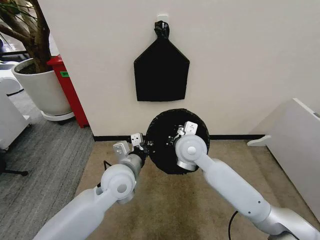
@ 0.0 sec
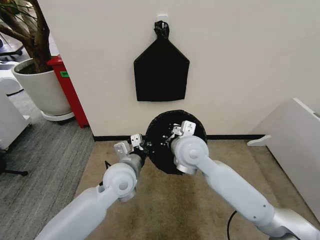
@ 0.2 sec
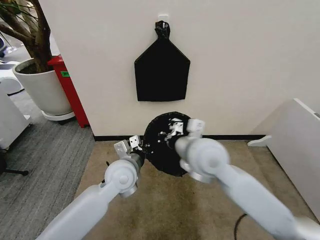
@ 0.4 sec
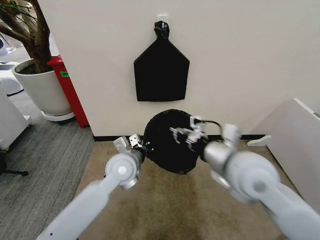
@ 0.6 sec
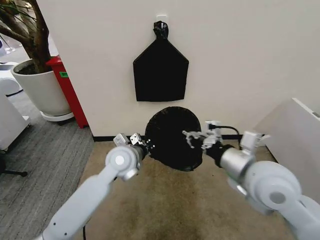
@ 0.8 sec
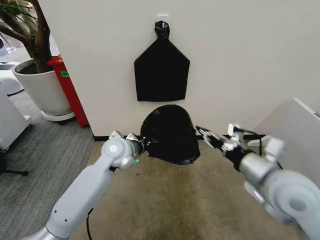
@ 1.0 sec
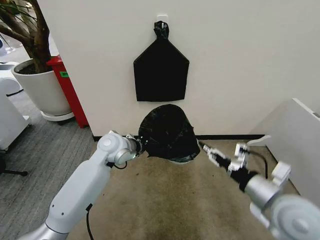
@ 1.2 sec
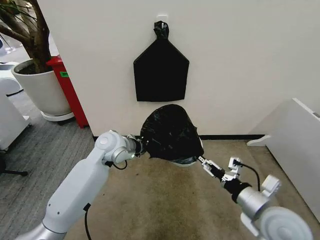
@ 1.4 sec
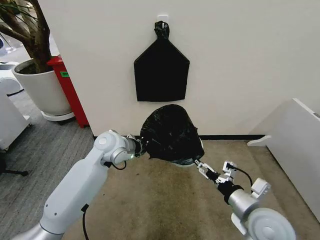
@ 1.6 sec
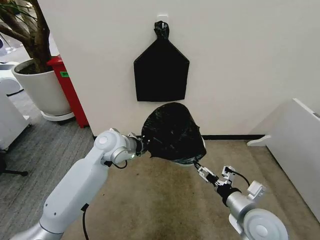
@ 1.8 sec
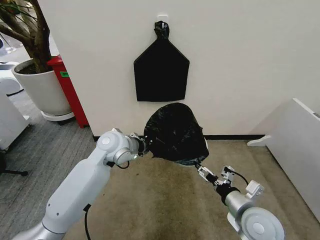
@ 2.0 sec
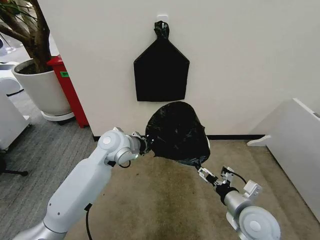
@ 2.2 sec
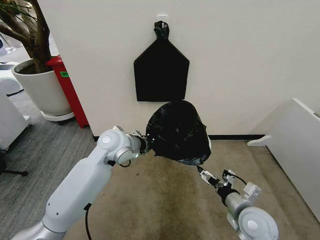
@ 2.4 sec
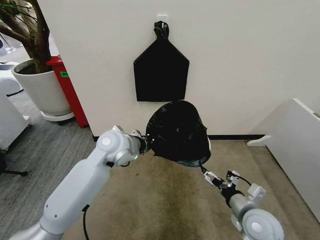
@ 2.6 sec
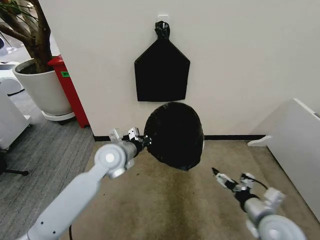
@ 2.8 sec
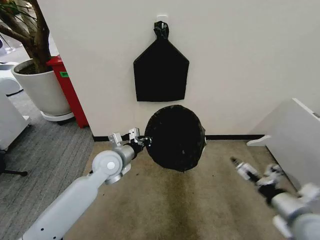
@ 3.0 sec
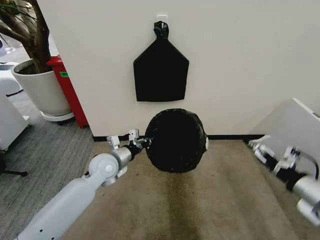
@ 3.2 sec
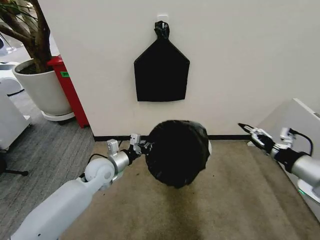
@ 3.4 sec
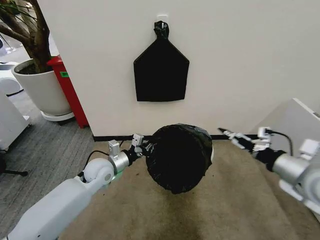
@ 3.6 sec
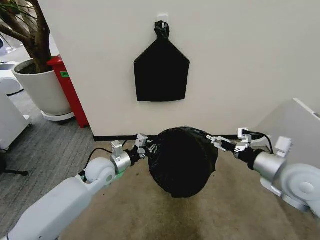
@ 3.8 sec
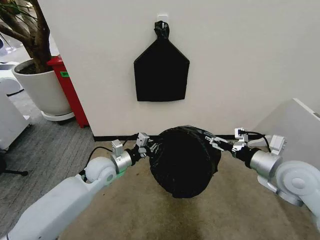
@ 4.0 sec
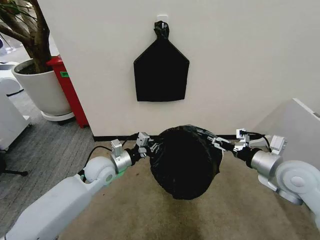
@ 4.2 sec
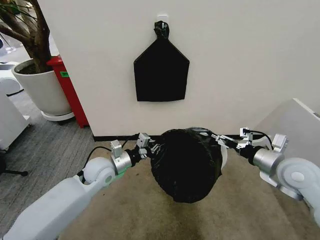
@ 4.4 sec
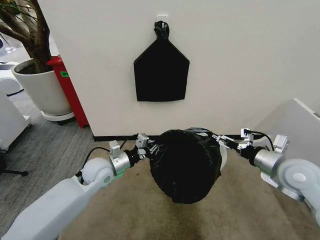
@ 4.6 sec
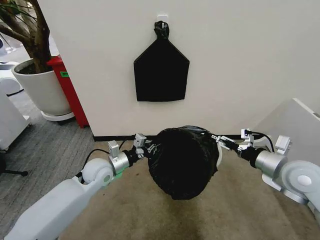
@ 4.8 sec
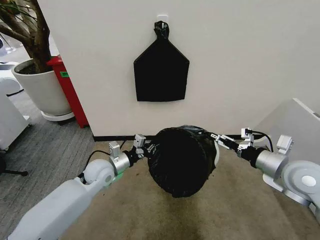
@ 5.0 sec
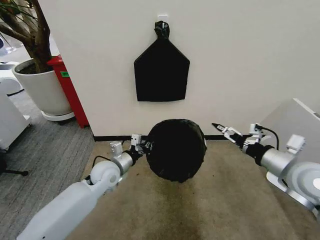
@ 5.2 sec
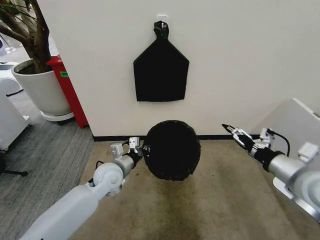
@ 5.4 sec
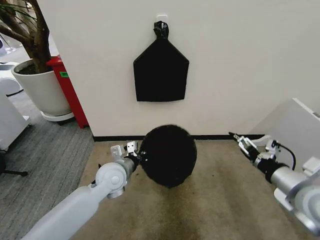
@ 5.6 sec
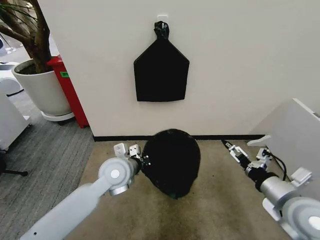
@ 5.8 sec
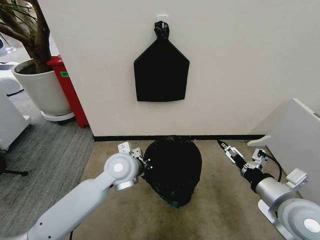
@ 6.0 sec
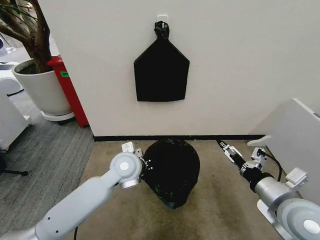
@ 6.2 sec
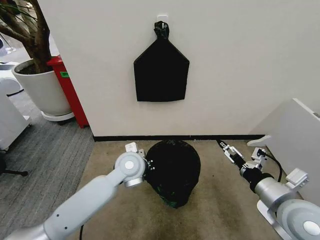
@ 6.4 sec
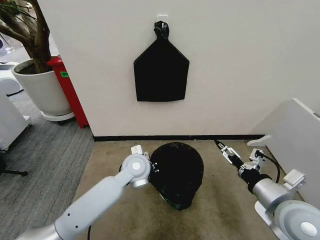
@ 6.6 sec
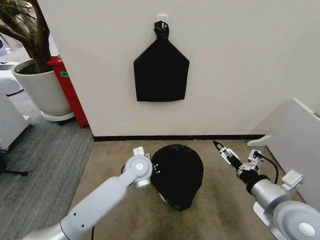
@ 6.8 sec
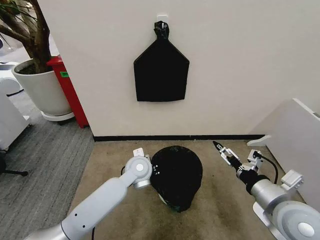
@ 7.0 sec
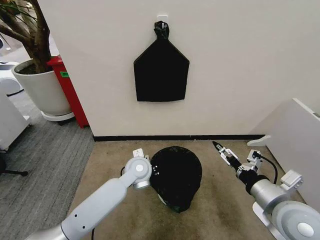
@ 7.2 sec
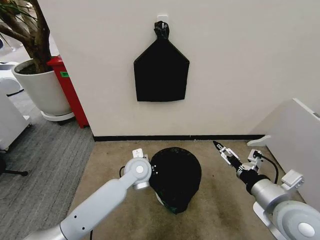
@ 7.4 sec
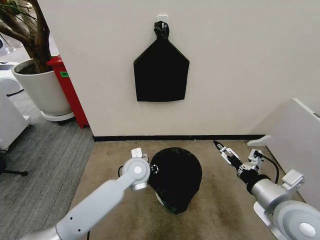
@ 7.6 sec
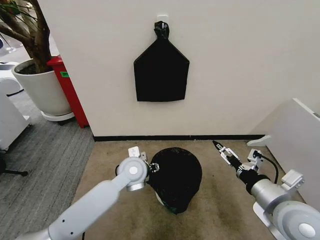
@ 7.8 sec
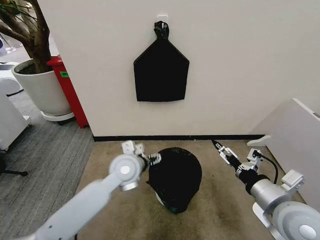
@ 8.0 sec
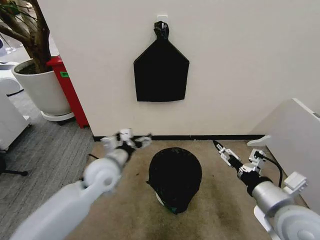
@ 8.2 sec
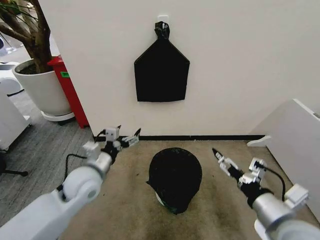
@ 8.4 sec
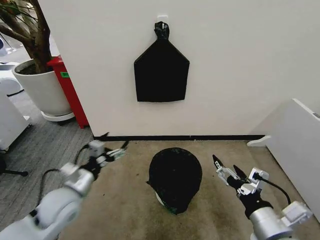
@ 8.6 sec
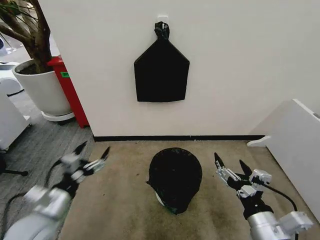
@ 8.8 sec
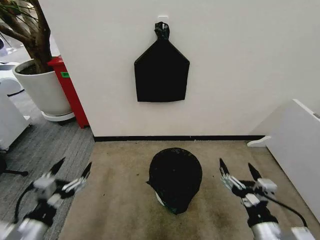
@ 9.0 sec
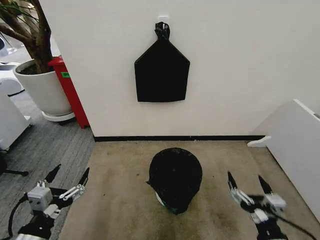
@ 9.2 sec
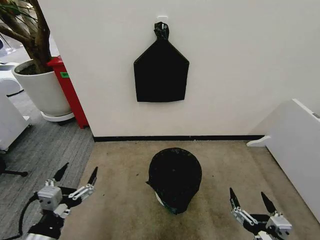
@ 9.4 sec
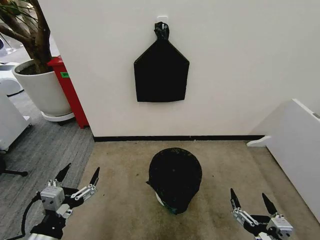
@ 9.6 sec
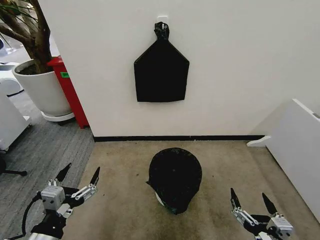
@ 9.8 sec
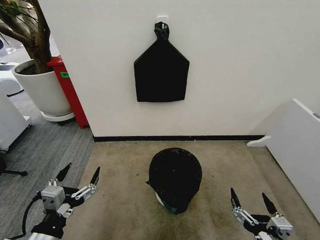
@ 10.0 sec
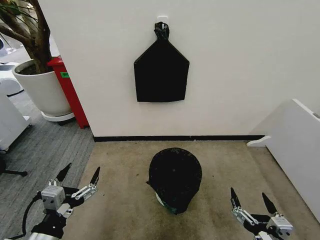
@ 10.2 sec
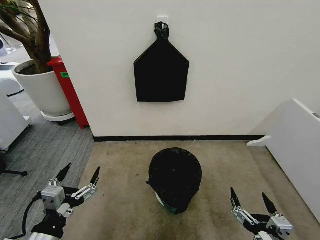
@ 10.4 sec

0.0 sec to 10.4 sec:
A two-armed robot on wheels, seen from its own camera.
Task of the whole recording: Place the garbage bag over the trash bin.
0.0 sec to 1.4 sec: The right gripper travels backward and to the right by about 25 cm, and opens its fingers; the left gripper heads forward, covering roughly 10 cm.
1.4 sec to 3.0 sec: The right gripper shifts approximately 5 cm to the right. Meanwhile the left gripper shifts by about 5 cm.
3.0 sec to 4.4 sec: The right gripper shifts some 15 cm forward and upward.
4.4 sec to 6.0 sec: The right gripper shifts approximately 10 cm backward. Meanwhile the left gripper heads to the right and upward, covering some 10 cm.
6.0 sec to 7.4 sec: The left gripper is displaced downward by roughly 5 cm.
7.4 sec to 9.0 sec: The left gripper moves backward and to the left, about 35 cm, and opens its fingers, while the right gripper moves backward and downward, approximately 10 cm.
9.0 sec to 10.4 sec: The left gripper moves about 5 cm. Meanwhile the right gripper moves backward, about 10 cm.

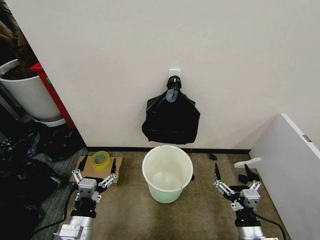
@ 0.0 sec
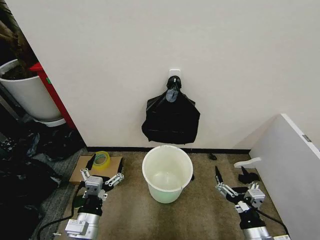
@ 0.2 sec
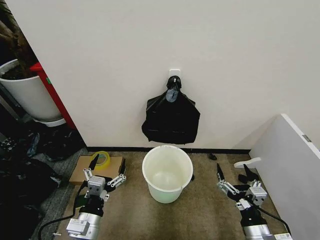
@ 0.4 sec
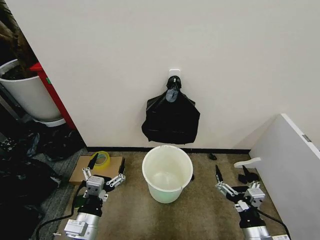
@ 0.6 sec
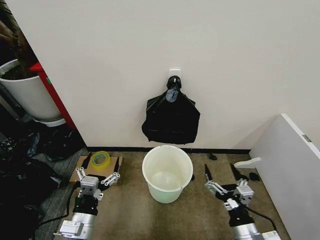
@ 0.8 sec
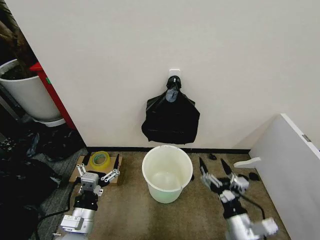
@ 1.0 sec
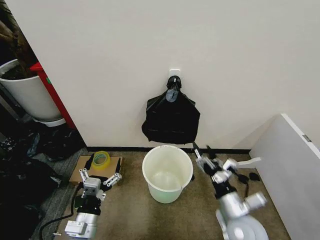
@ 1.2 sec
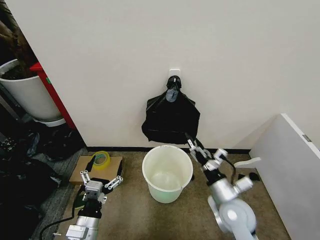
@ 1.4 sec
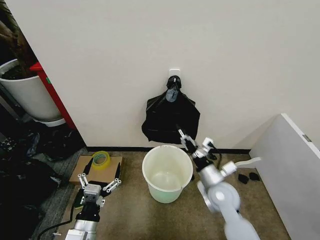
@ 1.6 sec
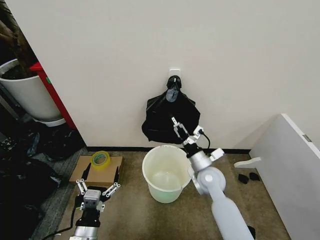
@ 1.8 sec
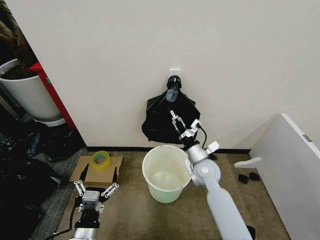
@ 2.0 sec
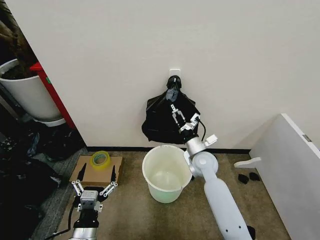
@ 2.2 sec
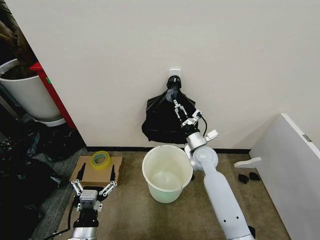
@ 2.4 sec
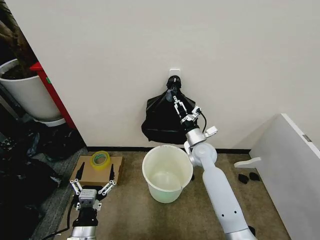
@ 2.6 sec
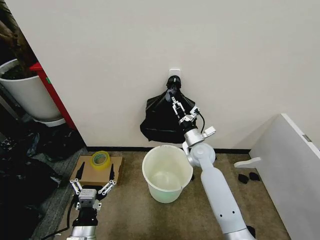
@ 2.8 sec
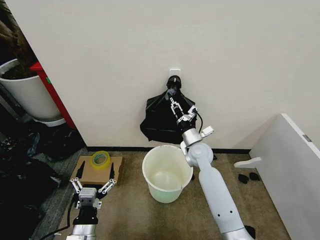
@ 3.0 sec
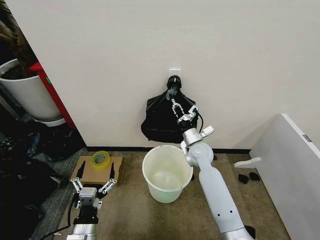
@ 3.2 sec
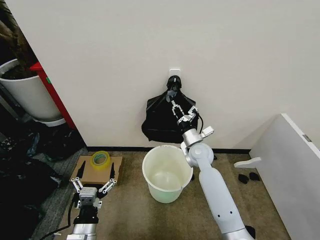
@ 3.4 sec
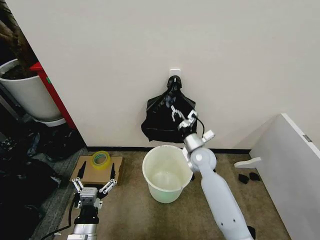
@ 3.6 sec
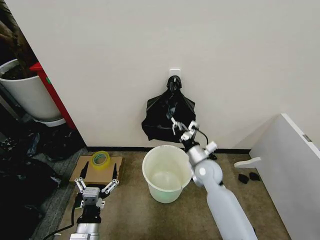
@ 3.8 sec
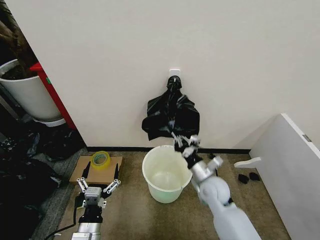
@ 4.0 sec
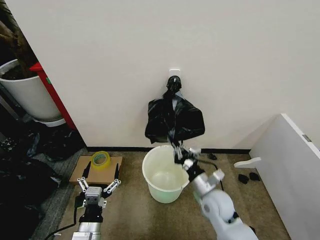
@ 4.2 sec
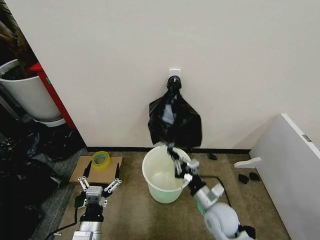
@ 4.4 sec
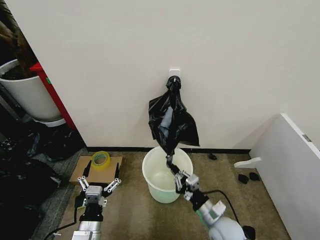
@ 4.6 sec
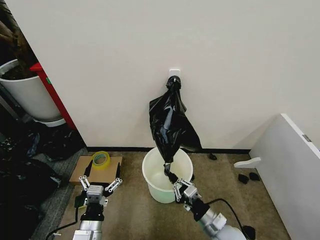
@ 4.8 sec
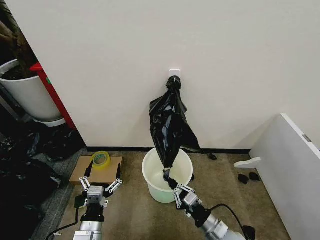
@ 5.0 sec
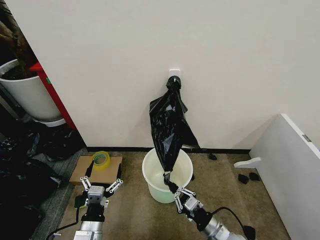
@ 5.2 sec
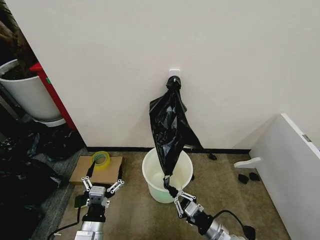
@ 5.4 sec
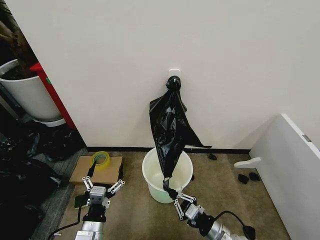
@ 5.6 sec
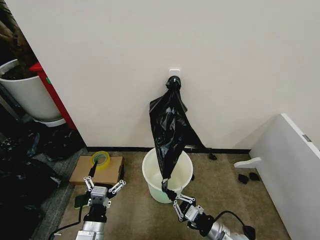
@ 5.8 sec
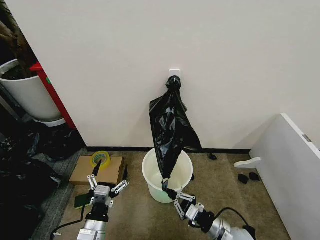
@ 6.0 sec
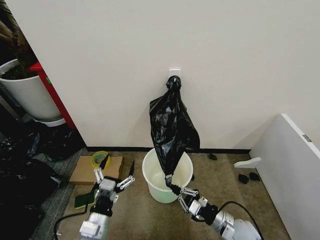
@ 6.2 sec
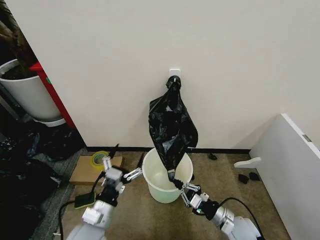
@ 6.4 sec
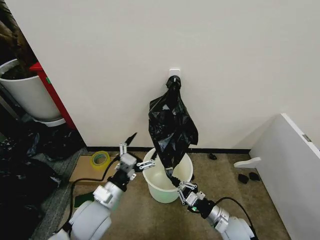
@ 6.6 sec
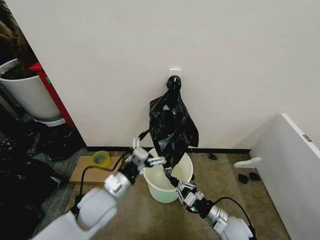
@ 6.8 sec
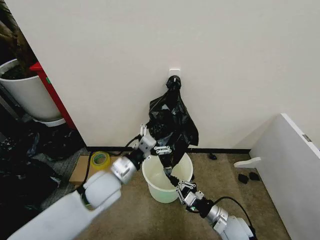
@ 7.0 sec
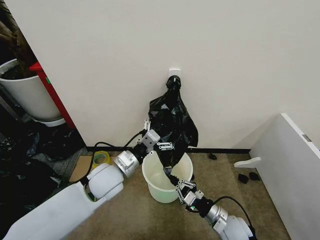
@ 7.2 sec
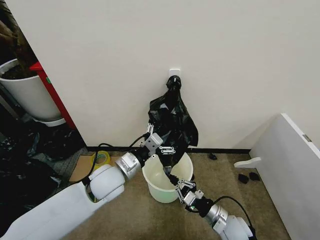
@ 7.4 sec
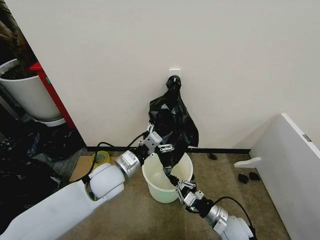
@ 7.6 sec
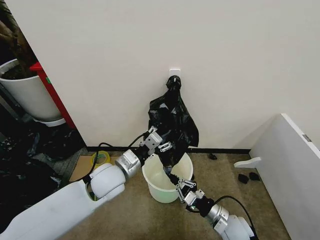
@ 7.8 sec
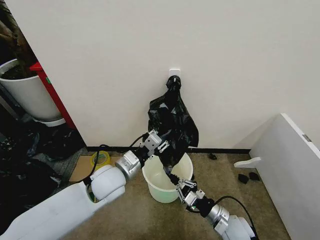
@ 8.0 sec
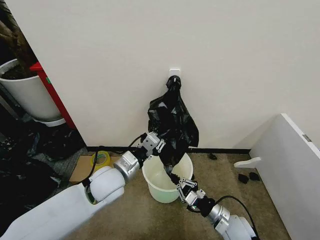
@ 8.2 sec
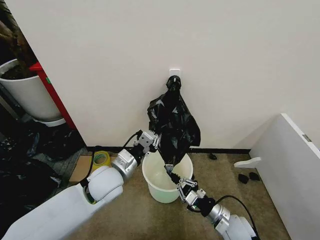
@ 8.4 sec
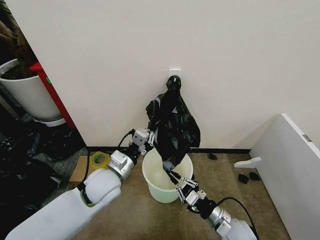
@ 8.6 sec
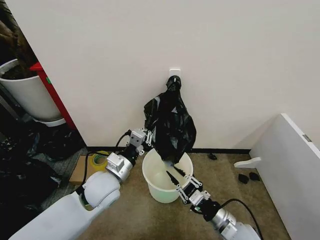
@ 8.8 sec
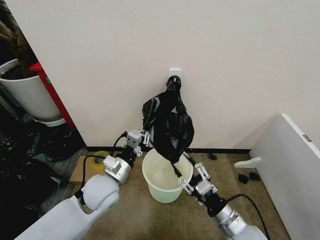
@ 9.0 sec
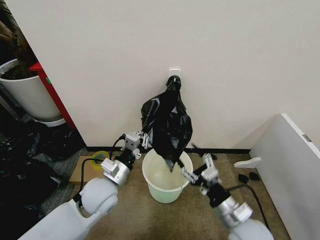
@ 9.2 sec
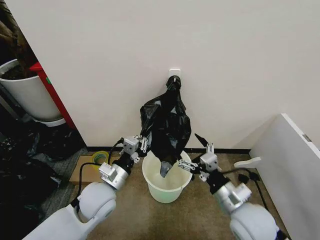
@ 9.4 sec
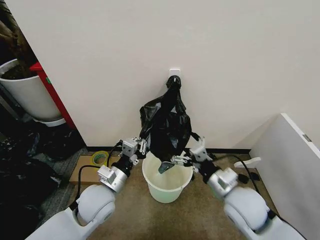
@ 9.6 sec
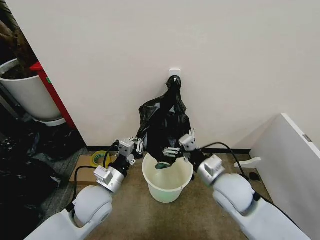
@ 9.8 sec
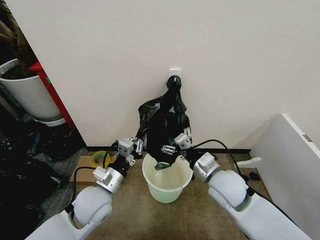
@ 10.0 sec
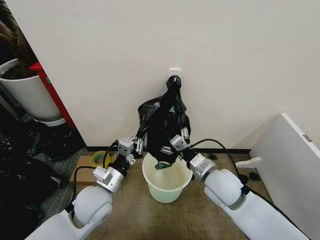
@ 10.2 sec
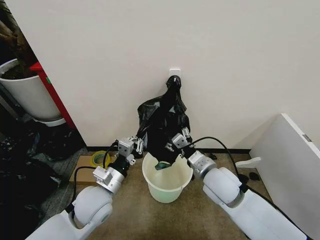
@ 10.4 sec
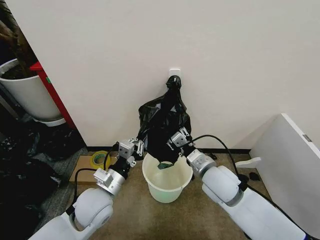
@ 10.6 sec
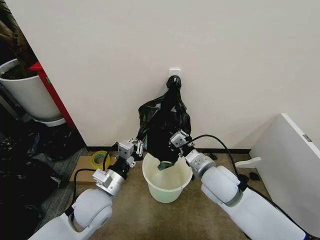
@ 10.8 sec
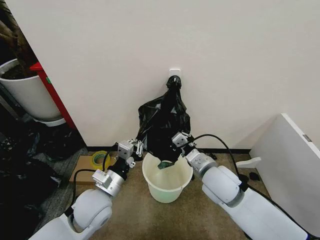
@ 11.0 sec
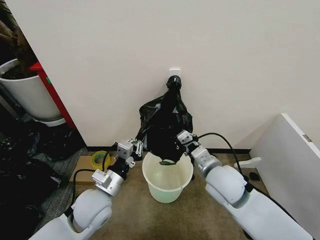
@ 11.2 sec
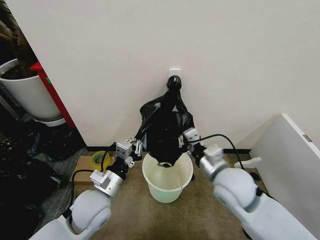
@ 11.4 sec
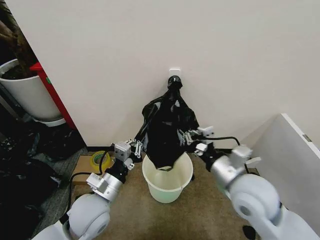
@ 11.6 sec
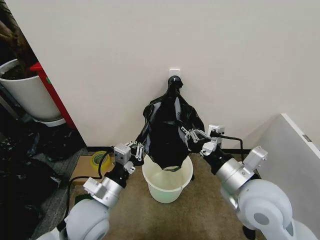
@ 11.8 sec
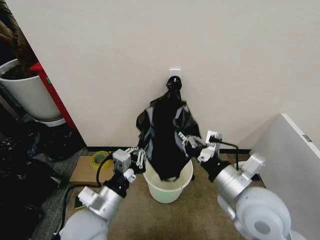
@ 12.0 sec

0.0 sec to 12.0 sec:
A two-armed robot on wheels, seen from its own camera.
Task of the whole recording: Place the garbage bag over the trash bin.
1.6 sec to 3.0 sec: The right gripper goes roughly 15 cm forward, and closes.
3.0 sec to 4.4 sec: The right gripper travels backward by about 20 cm.
4.4 sec to 6.0 sec: The right gripper goes some 5 cm backward.
6.0 sec to 7.6 sec: The left gripper moves forward and upward, roughly 20 cm.
7.6 sec to 9.0 sec: The left gripper closes its fingers. The right gripper goes about 10 cm upward, and opens.
9.0 sec to 10.4 sec: The right gripper goes roughly 15 cm forward, upward and to the left.
10.4 sec to 12.0 sec: The left gripper goes about 5 cm backward; the right gripper moves backward and upward, approximately 10 cm, and closes up.
